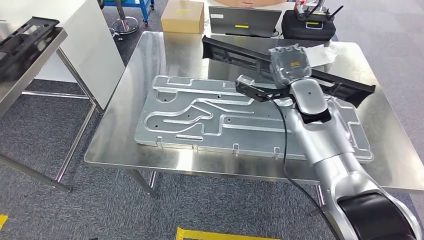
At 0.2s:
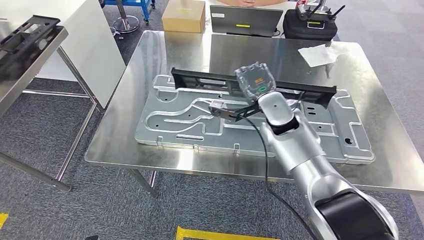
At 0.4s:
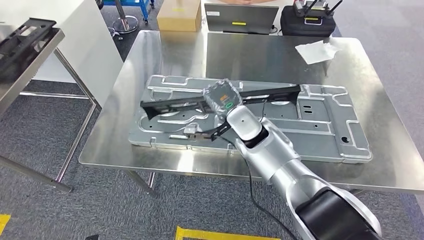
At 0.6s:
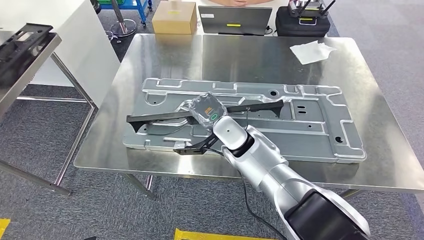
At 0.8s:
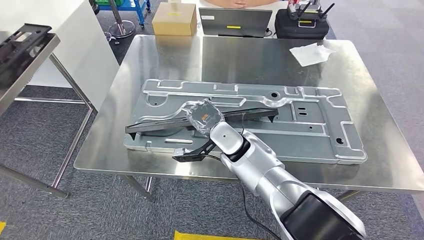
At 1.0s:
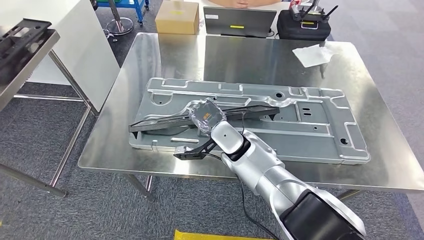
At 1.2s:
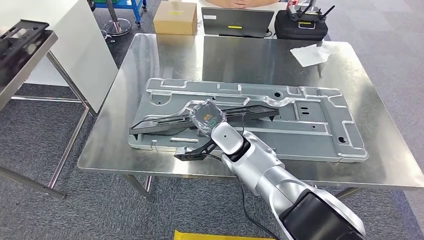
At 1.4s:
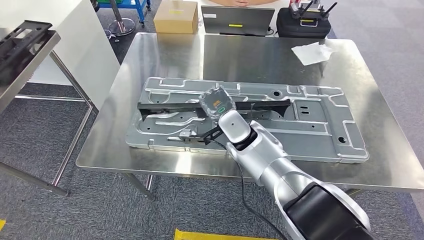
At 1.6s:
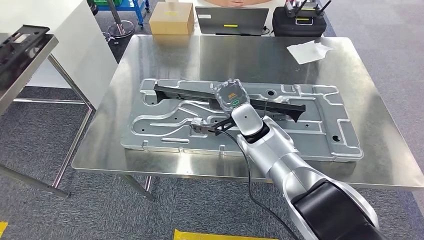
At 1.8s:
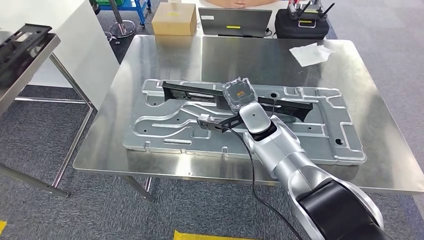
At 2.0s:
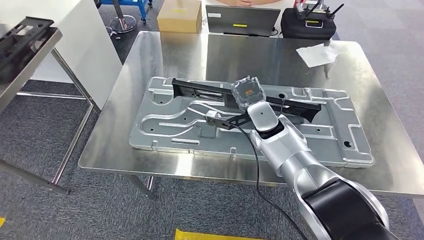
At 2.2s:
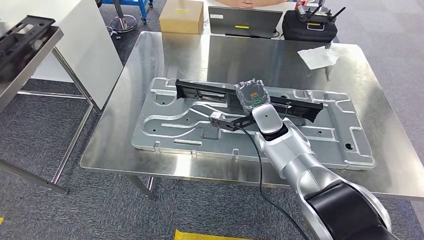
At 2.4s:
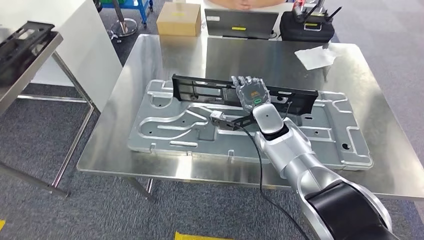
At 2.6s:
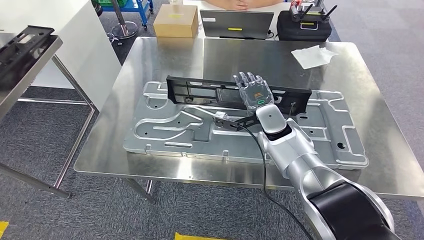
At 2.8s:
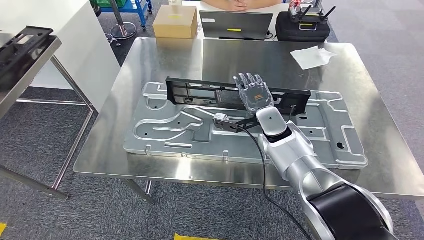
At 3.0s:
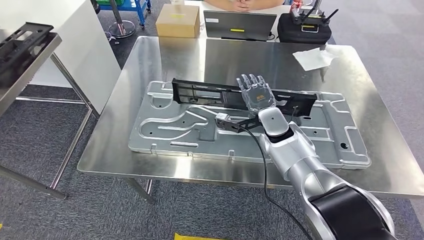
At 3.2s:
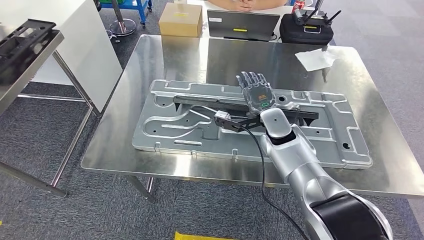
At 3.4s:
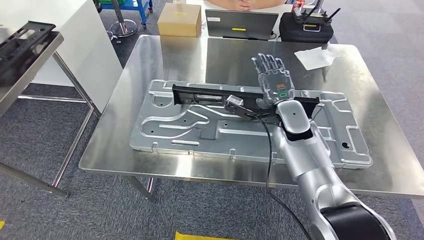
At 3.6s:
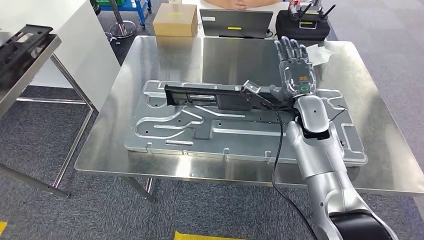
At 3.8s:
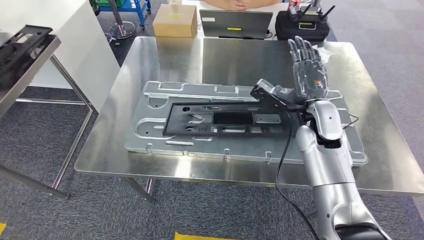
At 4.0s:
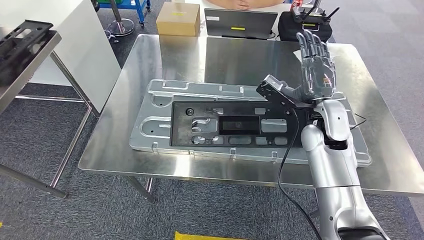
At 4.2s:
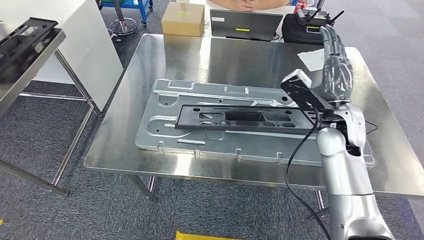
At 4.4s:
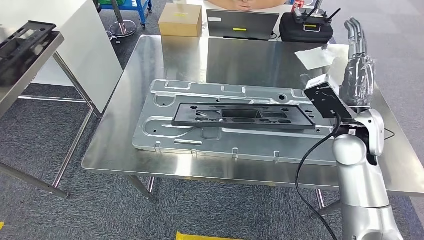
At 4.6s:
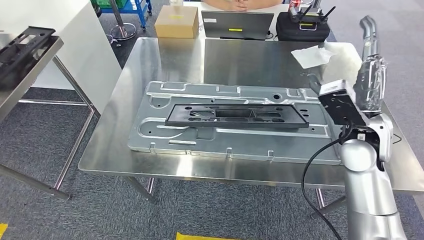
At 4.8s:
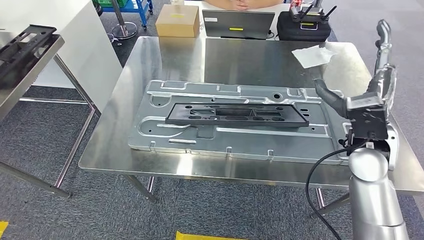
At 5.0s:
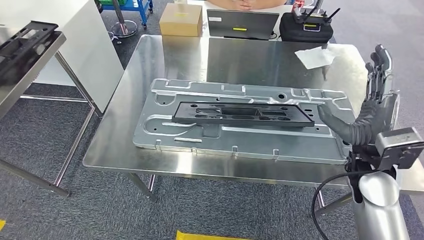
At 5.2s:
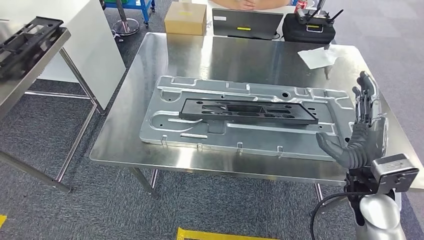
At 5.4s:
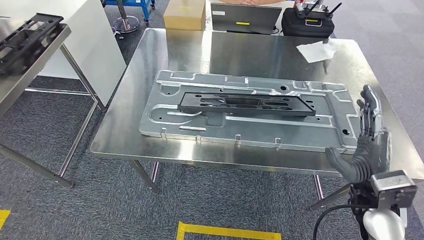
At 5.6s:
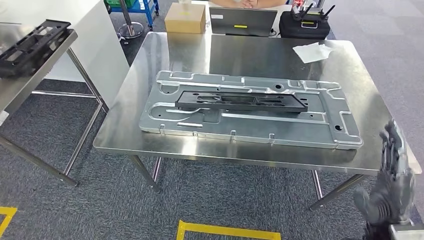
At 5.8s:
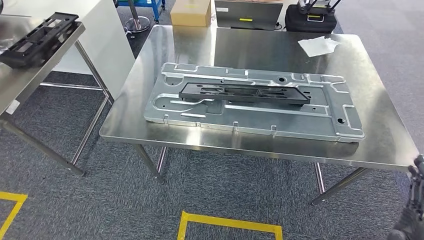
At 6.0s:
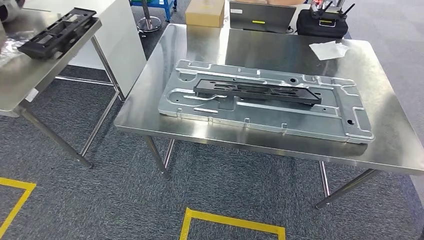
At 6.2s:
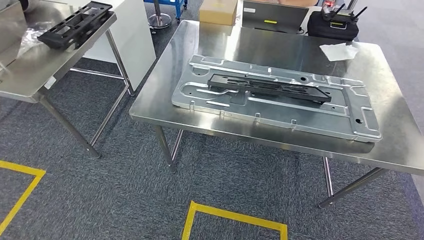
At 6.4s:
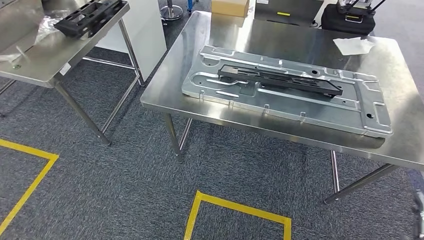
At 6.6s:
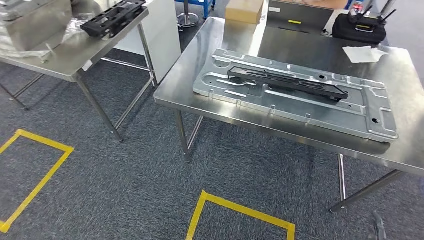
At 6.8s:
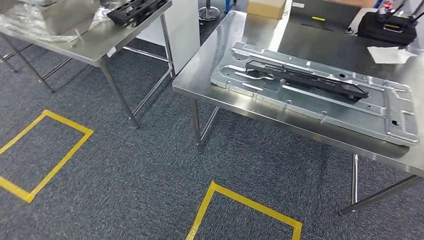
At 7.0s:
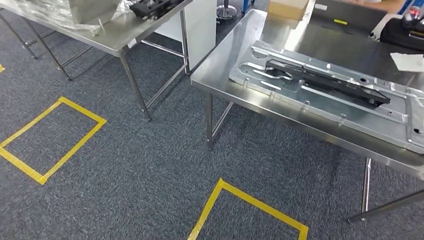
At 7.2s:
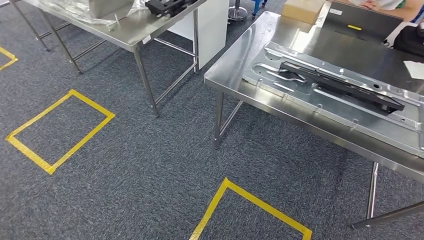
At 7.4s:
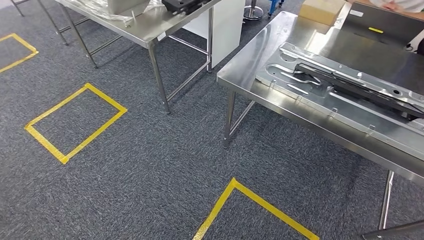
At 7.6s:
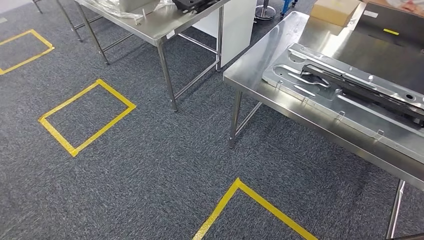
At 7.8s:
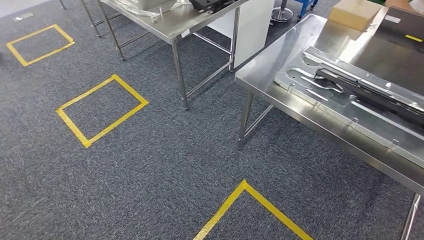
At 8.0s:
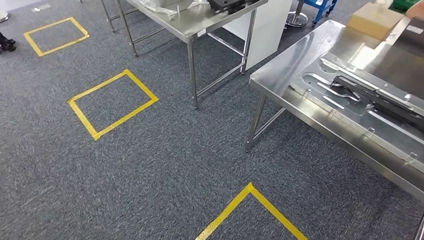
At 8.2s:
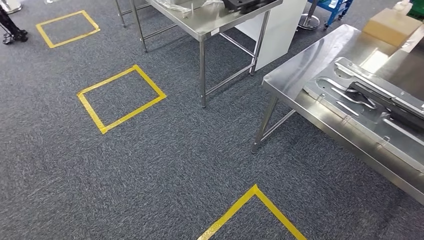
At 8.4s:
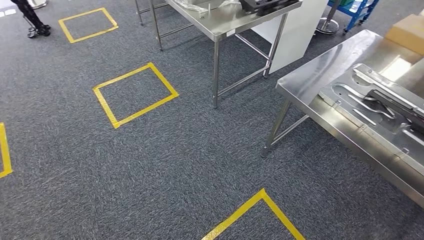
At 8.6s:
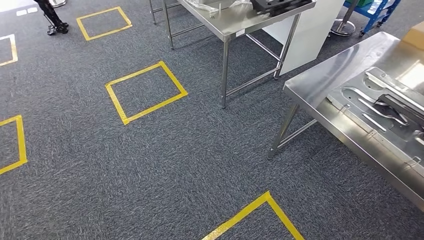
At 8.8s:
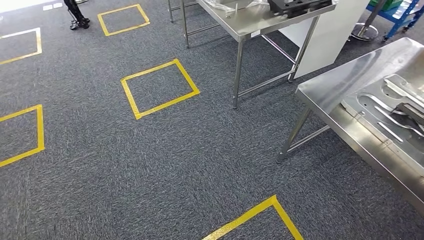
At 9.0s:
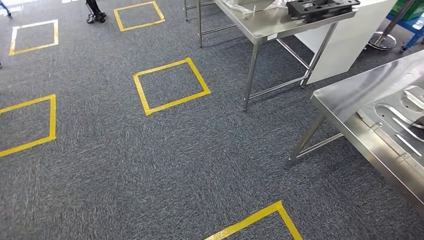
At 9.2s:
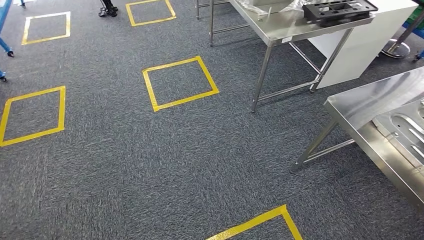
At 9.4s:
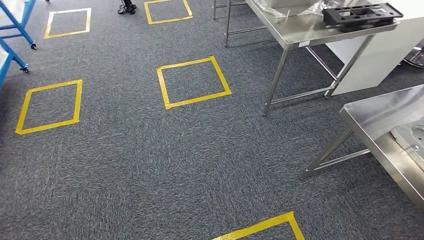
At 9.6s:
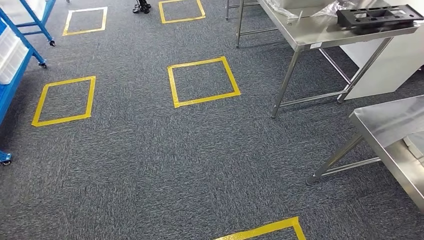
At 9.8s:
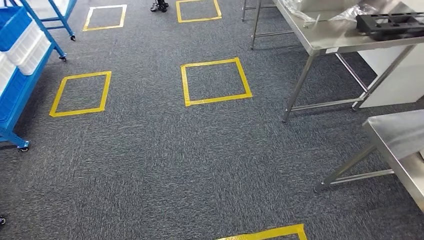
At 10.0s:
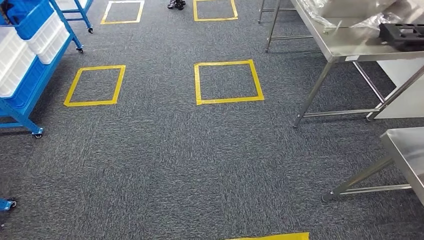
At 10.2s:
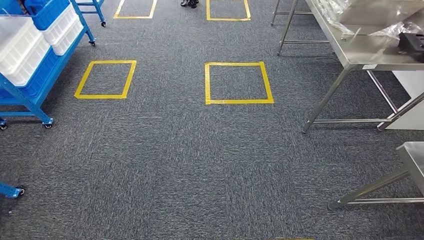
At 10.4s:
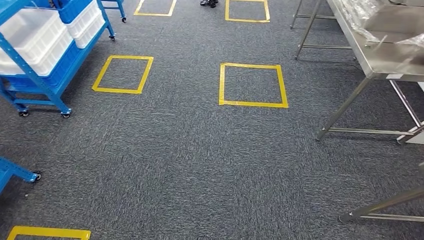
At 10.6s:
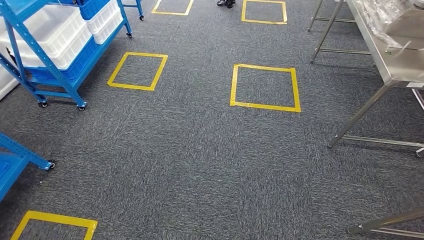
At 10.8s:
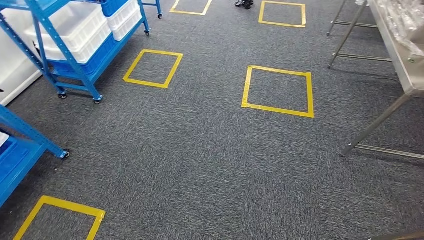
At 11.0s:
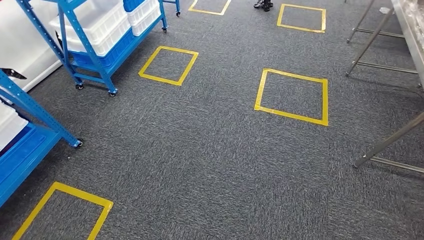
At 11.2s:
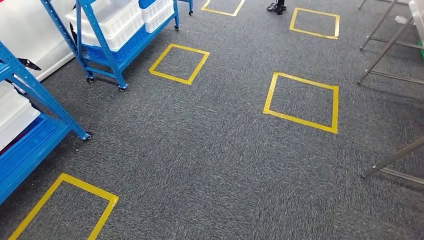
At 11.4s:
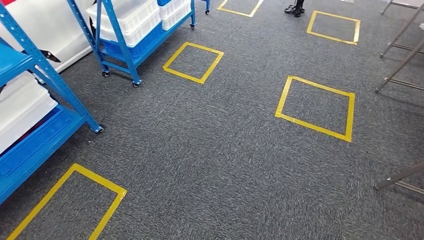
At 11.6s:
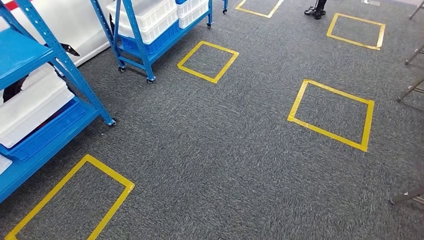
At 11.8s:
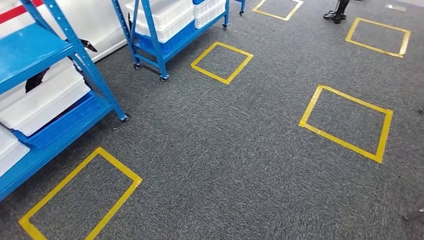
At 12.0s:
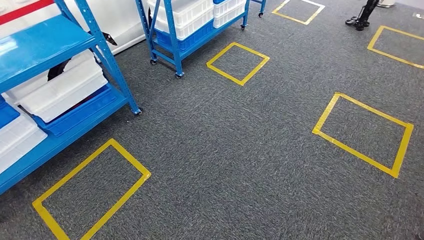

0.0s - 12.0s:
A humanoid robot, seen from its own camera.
Step, 0.0s - 5.6s: Insert the large material into the corresponding hole on the workbench.

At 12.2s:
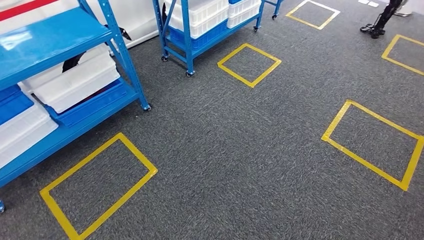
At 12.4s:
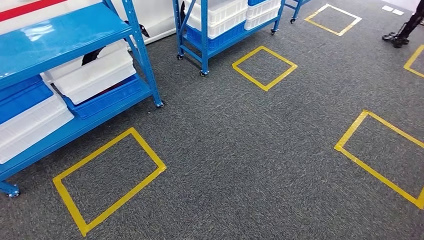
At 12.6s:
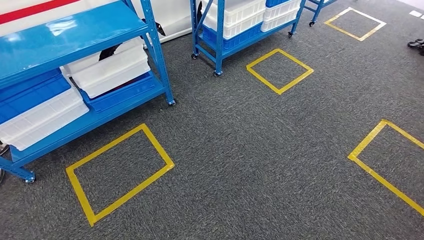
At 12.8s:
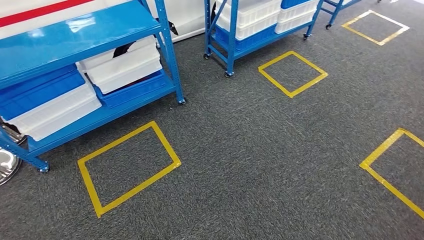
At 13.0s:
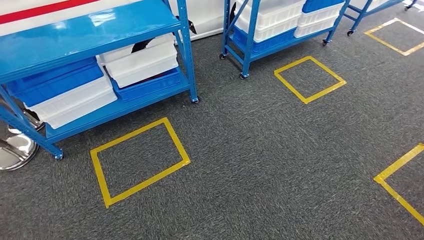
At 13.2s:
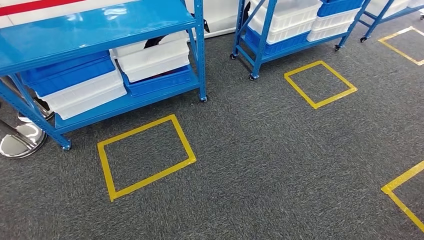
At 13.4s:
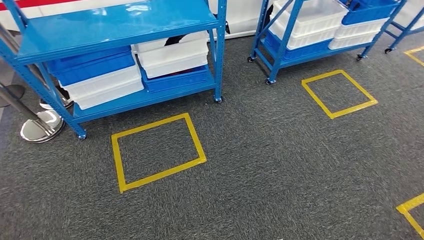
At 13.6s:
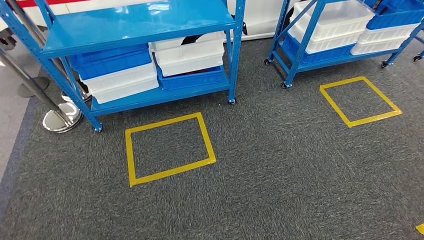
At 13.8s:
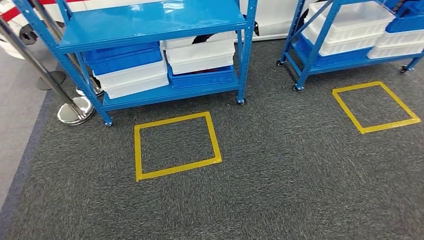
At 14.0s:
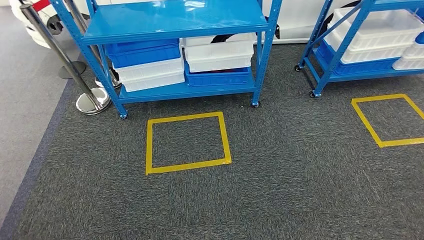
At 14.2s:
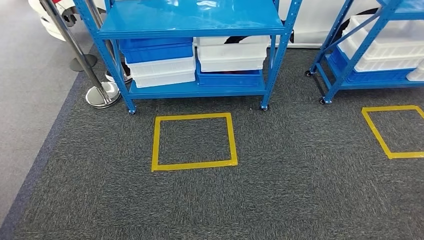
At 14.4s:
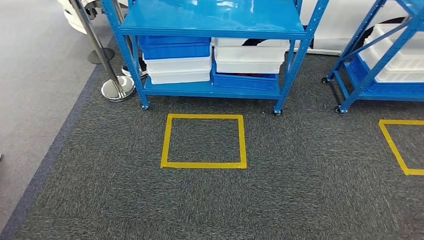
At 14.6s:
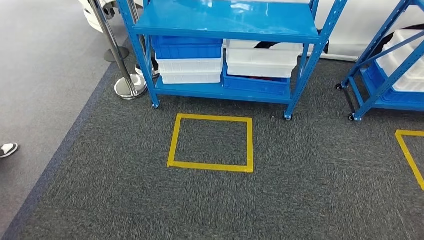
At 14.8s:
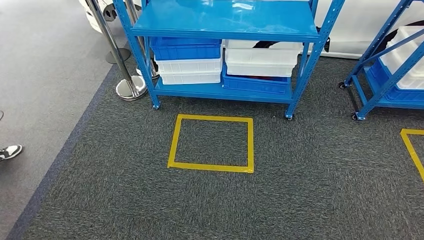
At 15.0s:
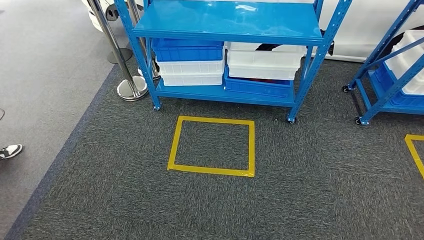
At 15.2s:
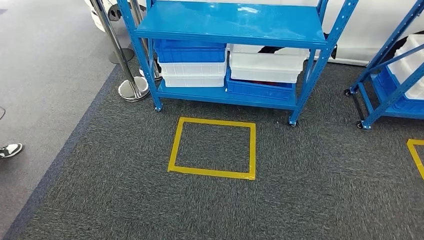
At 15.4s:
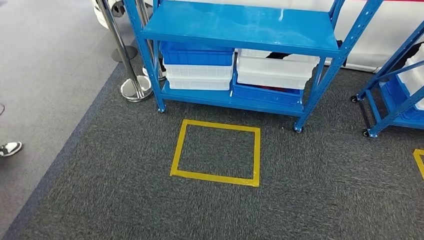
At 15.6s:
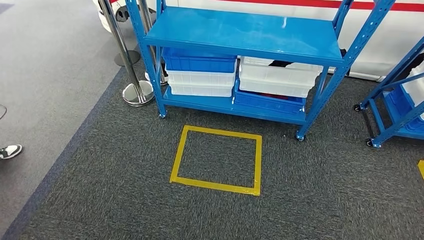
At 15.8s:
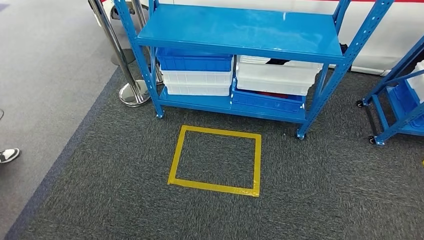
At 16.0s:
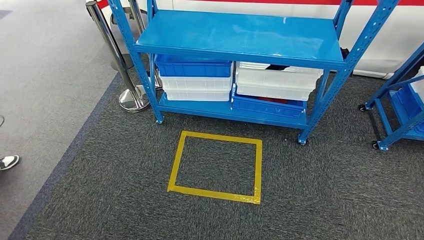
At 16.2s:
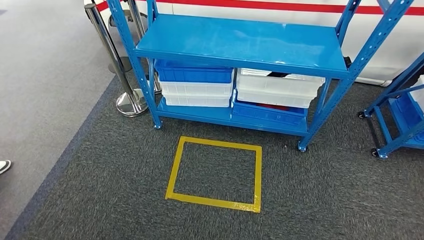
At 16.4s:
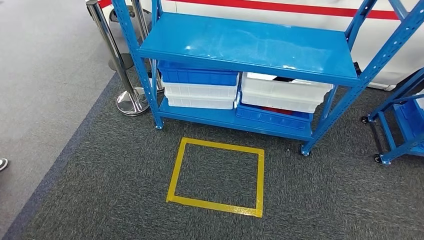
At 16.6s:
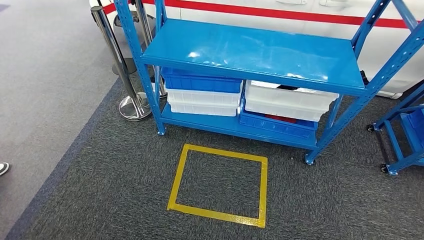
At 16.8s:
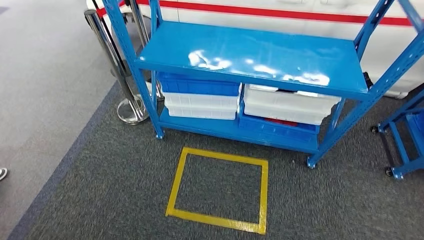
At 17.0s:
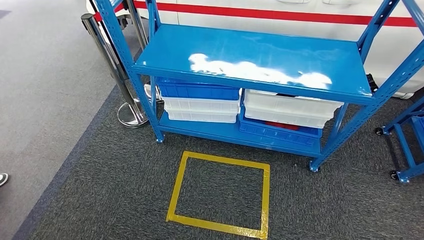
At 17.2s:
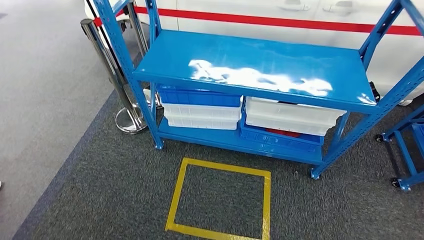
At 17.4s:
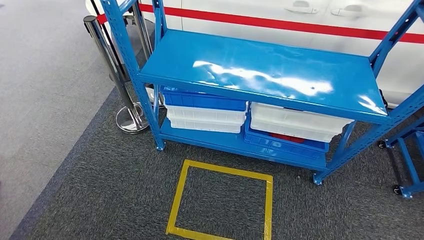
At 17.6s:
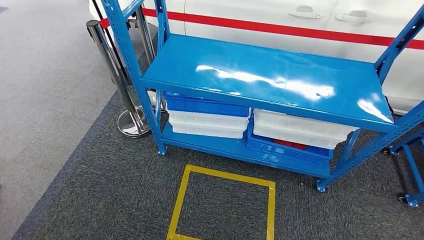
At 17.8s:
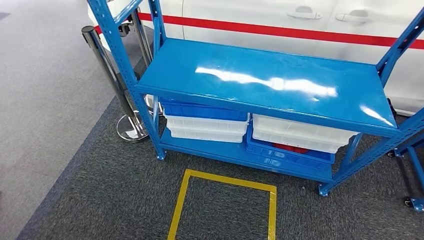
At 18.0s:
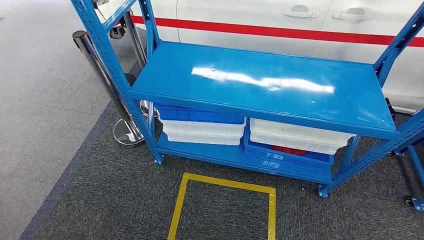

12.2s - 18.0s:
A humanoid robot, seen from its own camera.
Step, 12.2s - 18.0s: Move to the initial position of the shelf.
